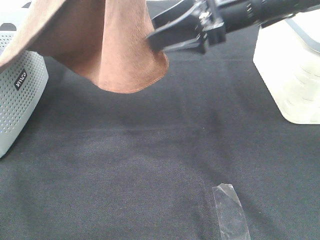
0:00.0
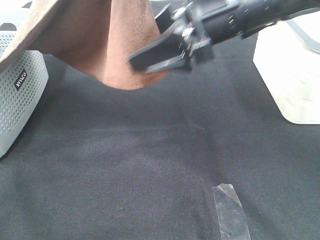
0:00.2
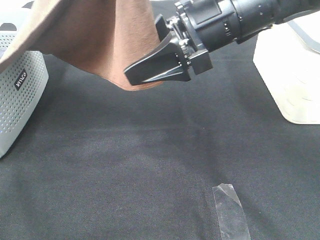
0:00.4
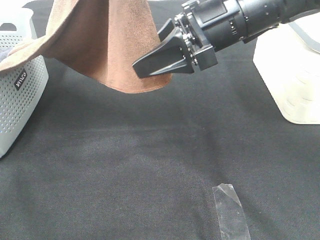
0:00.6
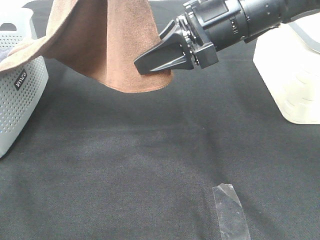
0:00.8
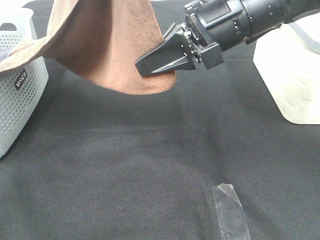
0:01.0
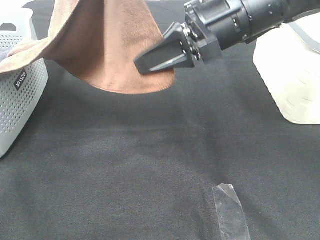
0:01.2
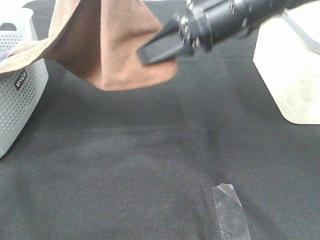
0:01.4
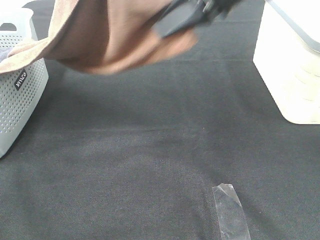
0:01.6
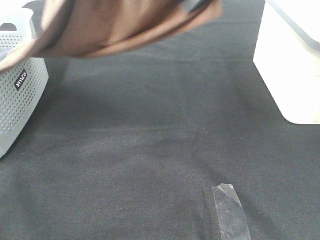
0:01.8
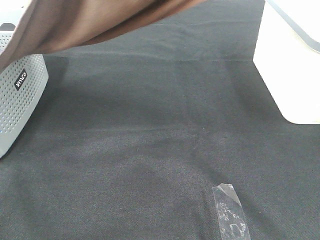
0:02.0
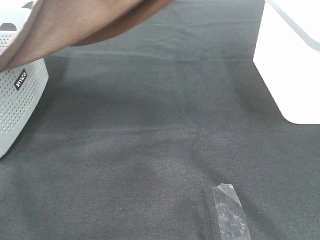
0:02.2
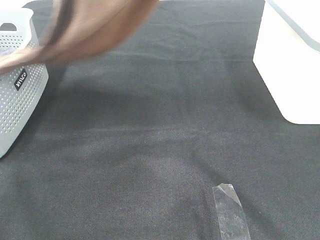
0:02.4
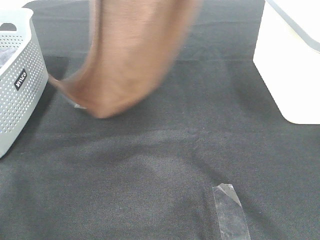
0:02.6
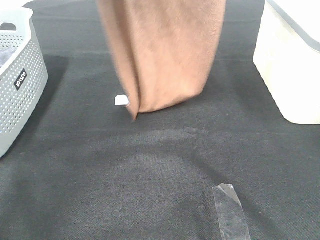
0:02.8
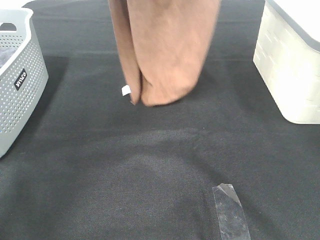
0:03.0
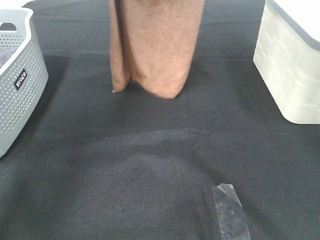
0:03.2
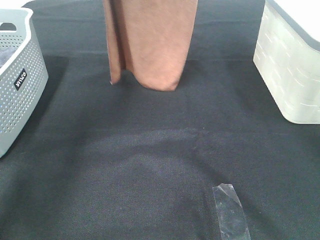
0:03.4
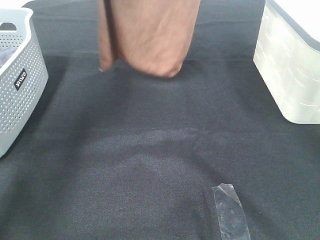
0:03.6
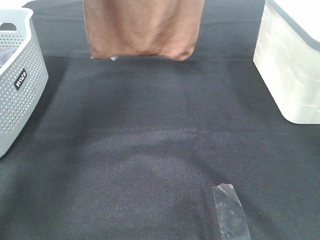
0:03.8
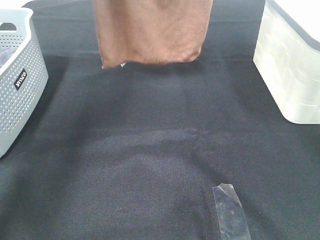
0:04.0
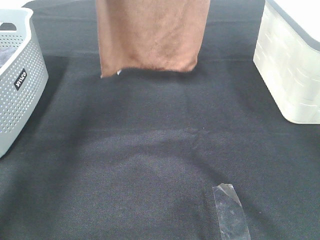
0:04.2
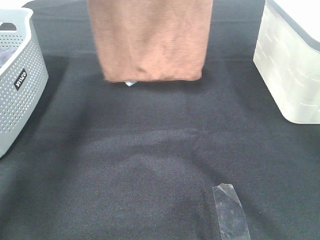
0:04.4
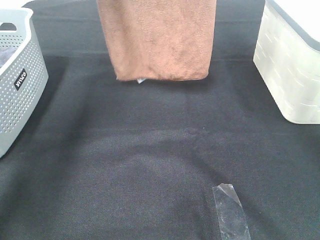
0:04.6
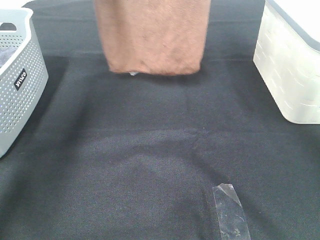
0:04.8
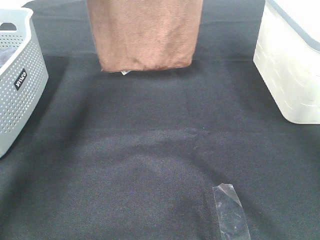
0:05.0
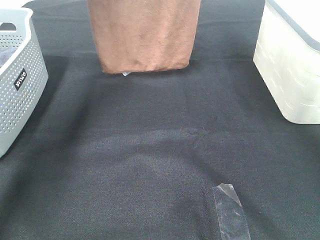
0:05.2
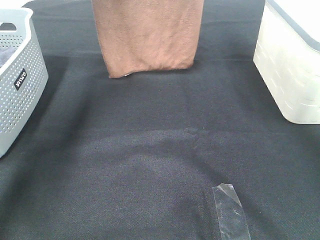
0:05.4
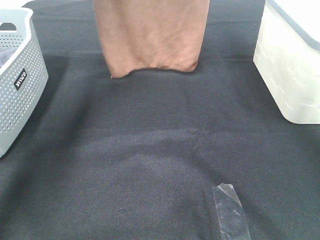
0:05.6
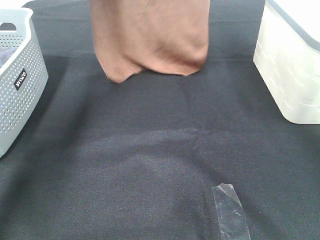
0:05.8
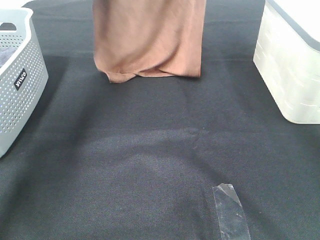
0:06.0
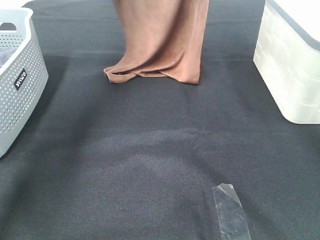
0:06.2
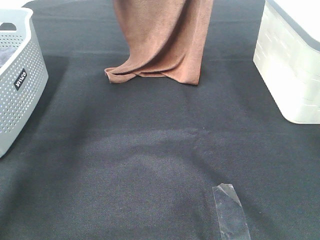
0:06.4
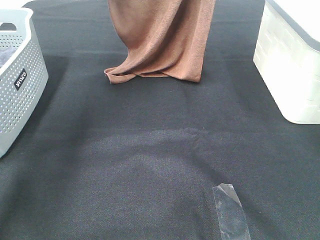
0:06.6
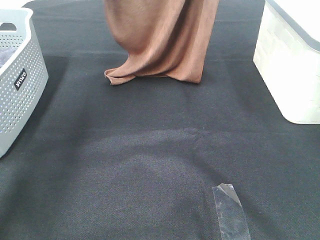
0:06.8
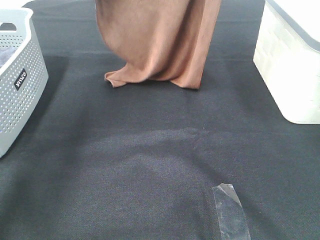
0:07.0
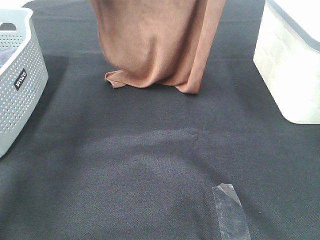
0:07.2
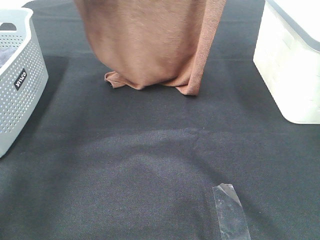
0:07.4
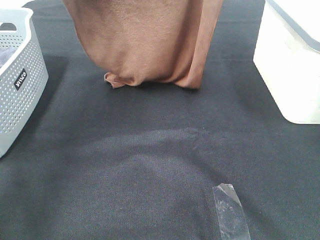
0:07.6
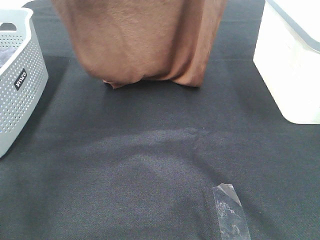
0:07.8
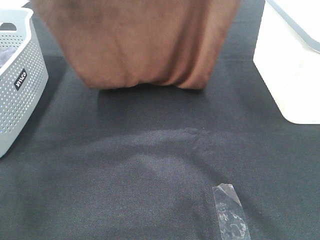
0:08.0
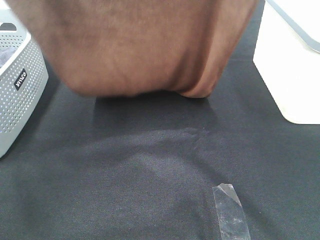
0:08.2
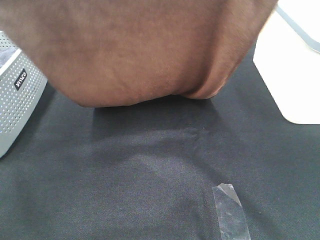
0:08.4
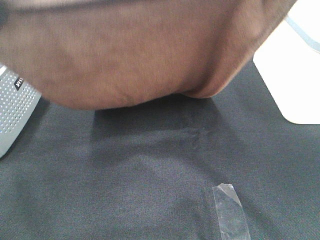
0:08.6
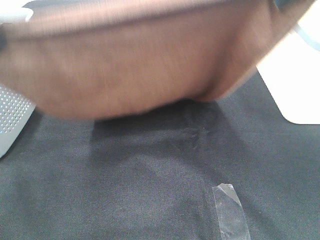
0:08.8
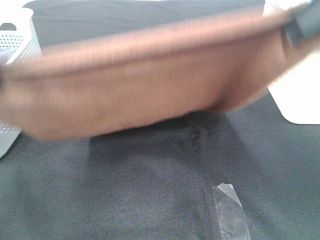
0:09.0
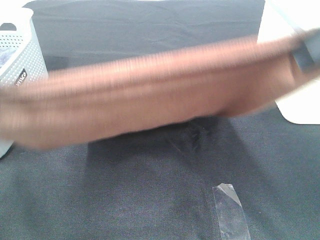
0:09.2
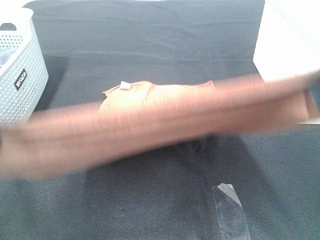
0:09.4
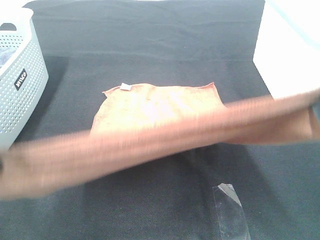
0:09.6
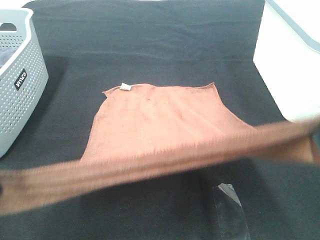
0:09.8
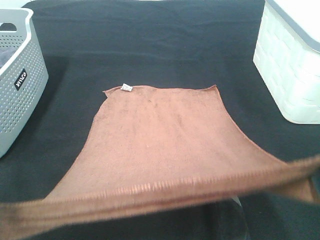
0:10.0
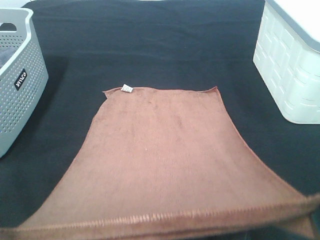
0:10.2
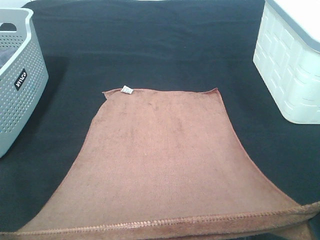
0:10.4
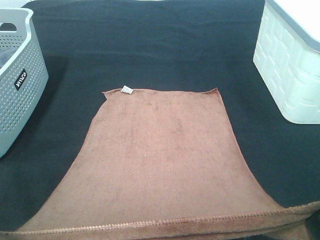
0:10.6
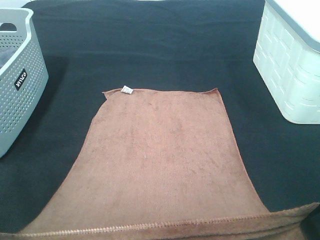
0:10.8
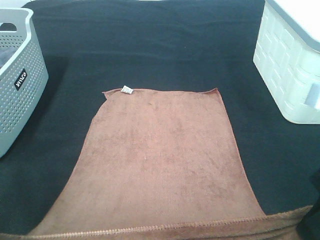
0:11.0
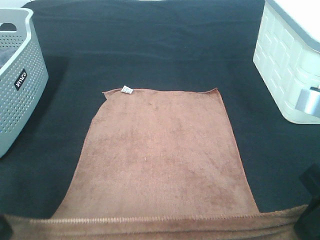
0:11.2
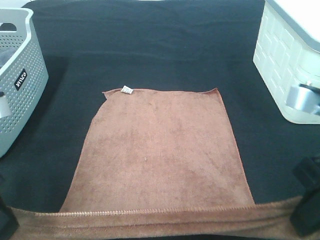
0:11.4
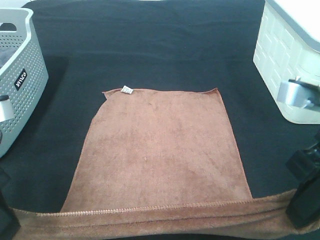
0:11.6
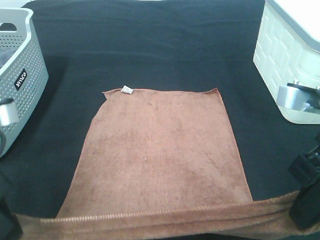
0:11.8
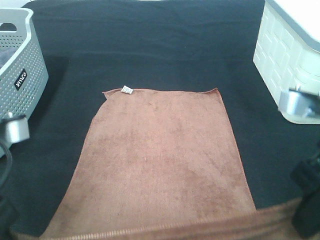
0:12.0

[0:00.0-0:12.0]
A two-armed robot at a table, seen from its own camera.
Task of the whole recording: Remove the towel and place it.
Step, 0:00.0 to 0:02.2: Right hand: grab a corner of the brown towel and straighten it.
Step, 0:02.4 to 0:09.6: Left hand: spread the brown towel flat on the table.
Step, 0:02.4 to 0:09.6: Right hand: spread the brown towel flat on the table.
0:00.0 to 0:01.6: The right gripper travels upward by some 5 cm, and closes up.
0:01.6 to 0:03.0: The right gripper shifts approximately 15 cm upward and forward, while the left gripper heads forward, covering some 15 cm.
0:03.0 to 0:04.4: The left gripper ends up roughly 5 cm from where it was.
0:04.4 to 0:06.0: Both grippers move downward, roughly 5 cm.
0:06.0 to 0:07.6: The grippers both shift backward by about 15 cm.
0:07.6 to 0:09.0: The left gripper is displaced backward and downward by about 20 cm; the right gripper travels backward by some 20 cm.
0:09.0 to 0:10.4: The grippers both shift downward and backward by roughly 15 cm.
0:10.4 to 0:12.0: The left gripper shifts by about 5 cm. The right gripper heads forward and downward, covering about 10 cm.

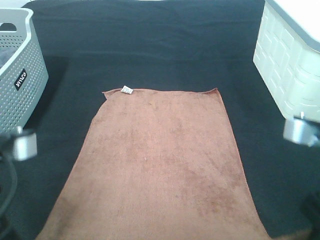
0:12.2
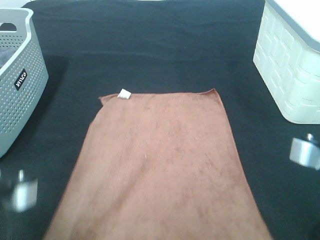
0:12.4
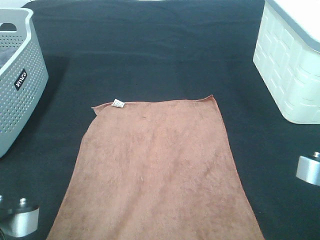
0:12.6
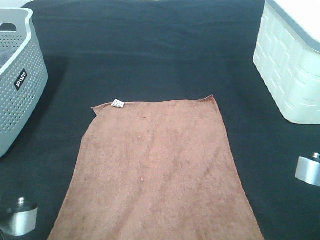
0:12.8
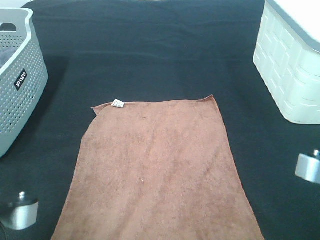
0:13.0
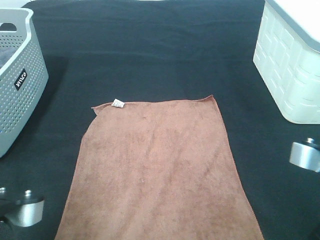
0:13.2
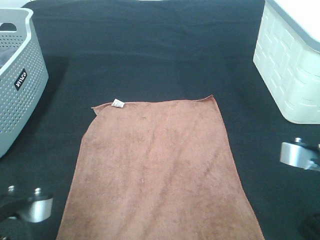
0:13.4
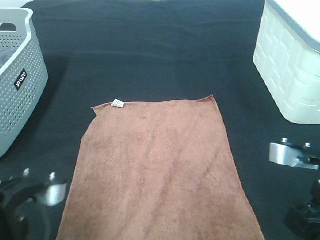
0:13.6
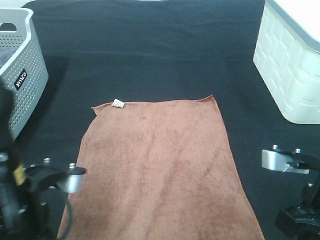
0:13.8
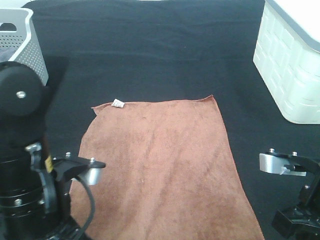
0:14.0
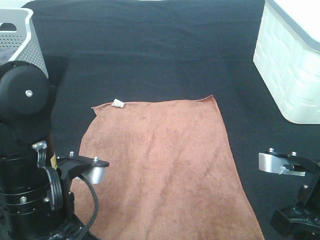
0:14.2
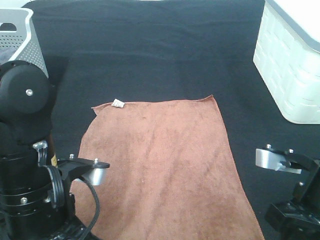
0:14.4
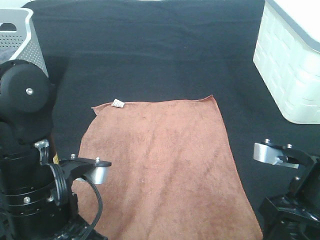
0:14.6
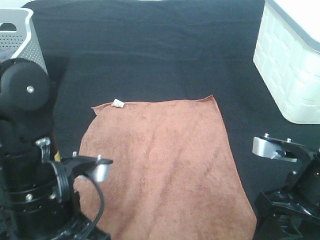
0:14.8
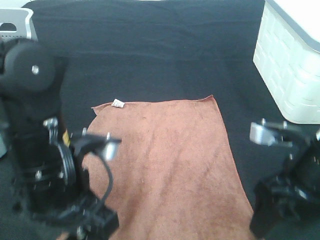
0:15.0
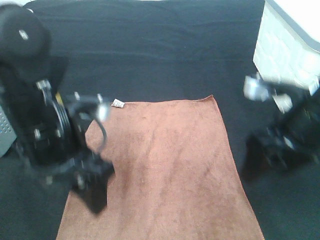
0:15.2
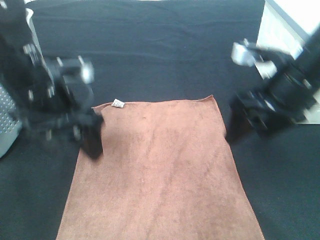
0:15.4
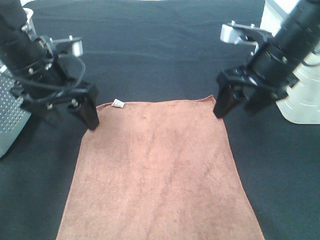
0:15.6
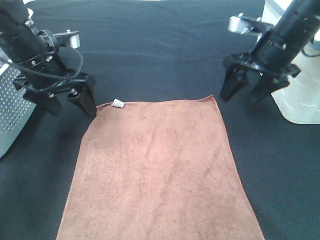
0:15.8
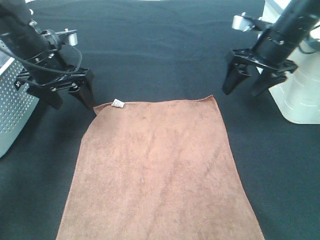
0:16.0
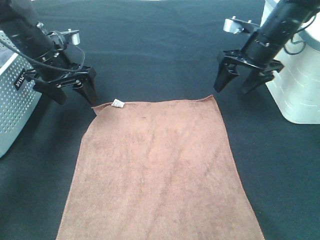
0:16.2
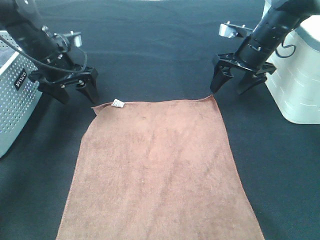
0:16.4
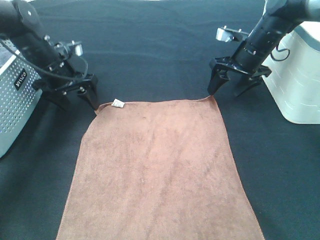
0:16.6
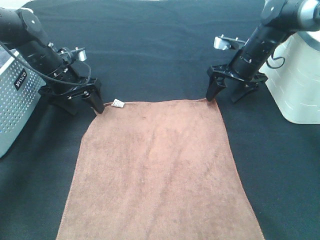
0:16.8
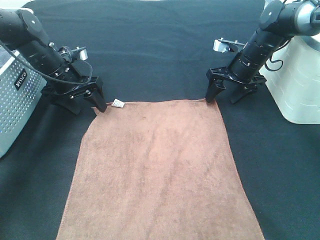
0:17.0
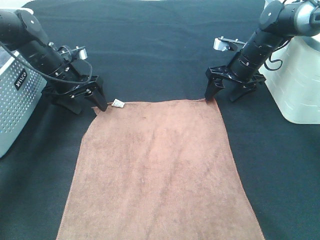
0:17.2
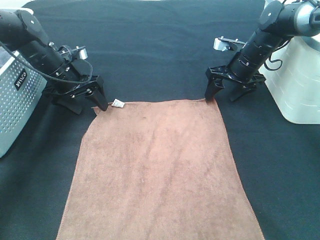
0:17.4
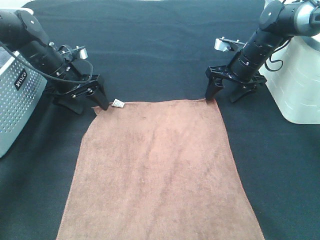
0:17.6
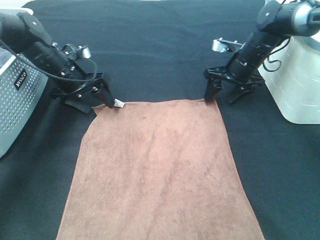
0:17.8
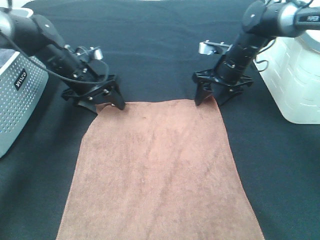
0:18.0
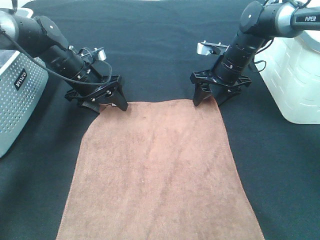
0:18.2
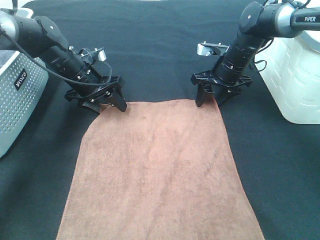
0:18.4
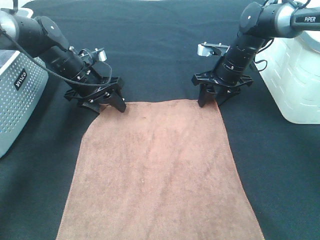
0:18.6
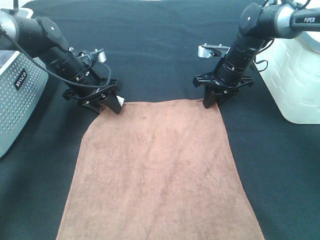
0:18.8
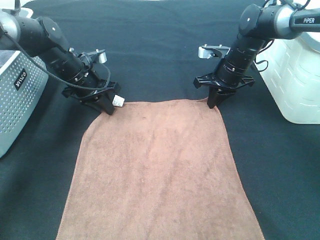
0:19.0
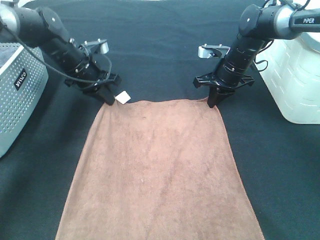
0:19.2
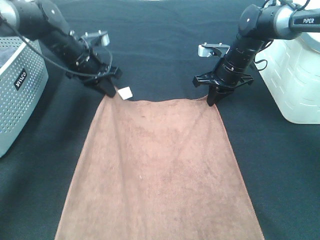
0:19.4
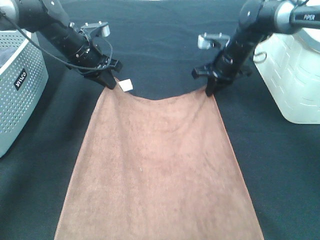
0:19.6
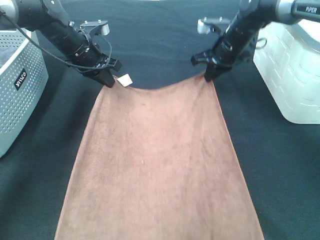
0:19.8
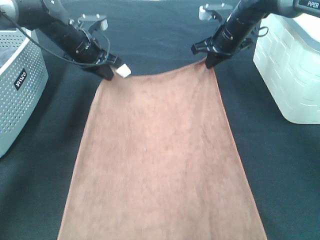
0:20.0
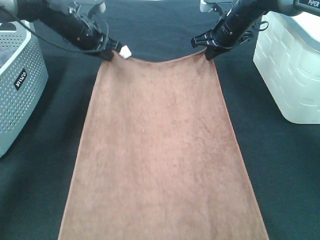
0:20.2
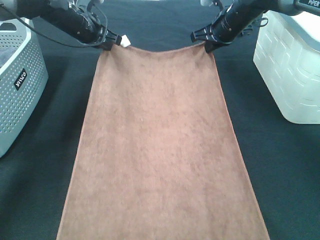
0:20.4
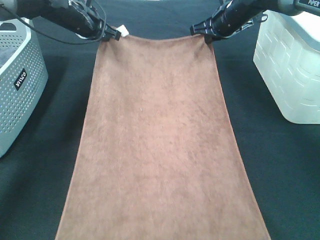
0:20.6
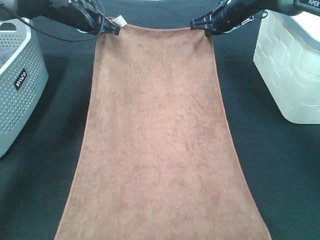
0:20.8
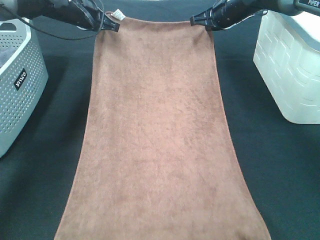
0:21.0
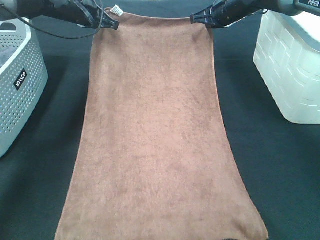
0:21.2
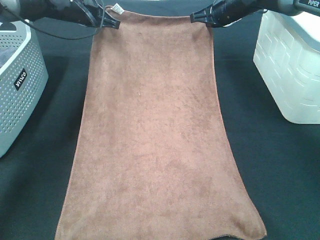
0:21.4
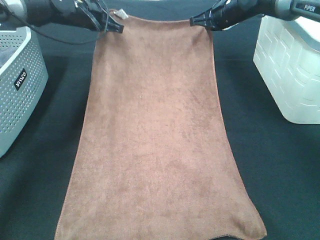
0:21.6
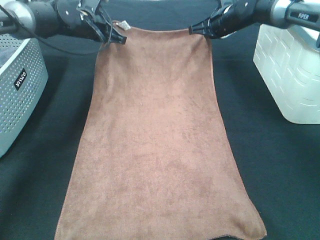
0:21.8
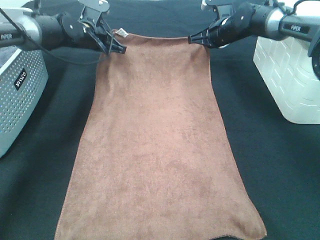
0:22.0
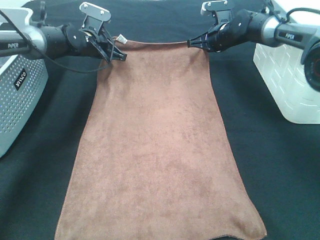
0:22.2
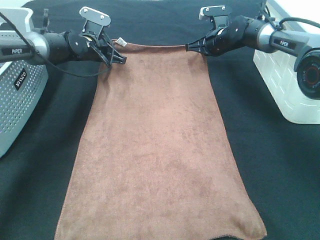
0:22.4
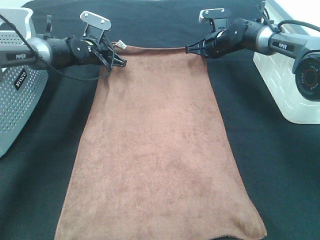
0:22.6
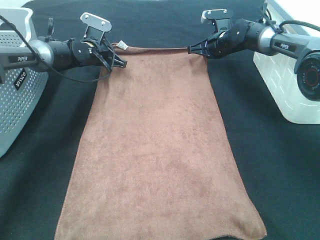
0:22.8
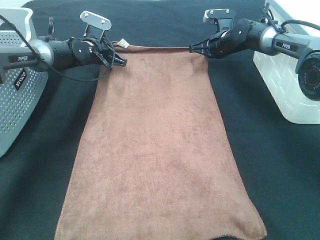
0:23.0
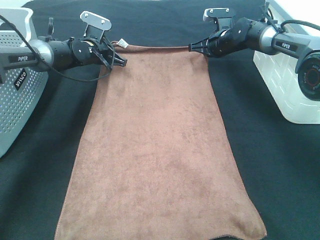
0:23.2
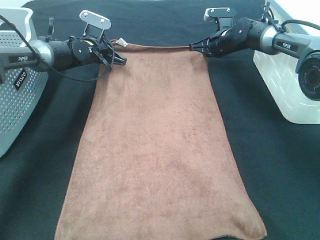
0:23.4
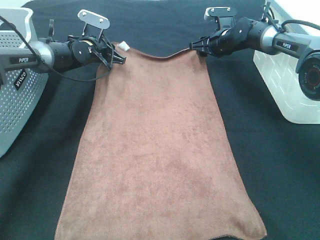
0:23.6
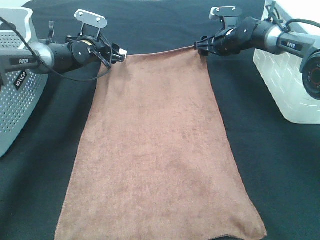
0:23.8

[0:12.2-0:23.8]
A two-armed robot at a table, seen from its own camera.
Task of the whole recording: Remove the towel and place it.
Step, 0:12.2 to 0:17.4: Left hand:adjust the brown towel.
Step, 0:12.2 to 0:18.2: Right hand:adjust the brown towel.
0:12.2 to 0:13.6: The left gripper changes place by roughly 5 cm.
0:13.6 to 0:15.0: The right gripper changes place by about 5 cm, and opens. The left gripper is displaced forward by roughly 5 cm, and opens.
0:15.0 to 0:16.6: The left gripper shifts roughly 30 cm forward and to the left. Meanwhile the right gripper goes about 30 cm forward.
0:16.6 to 0:18.0: The grippers make only small movements.
0:18.0 to 0:19.4: The left gripper closes its fingers. The right gripper closes up.
0:19.4 to 0:21.0: The two grippers go about 10 cm upward and forward.
0:21.0 to 0:22.4: Both grippers travel together downward, approximately 10 cm.
0:22.4 to 0:23.8: The left gripper opens up. Meanwhile the right gripper opens.
